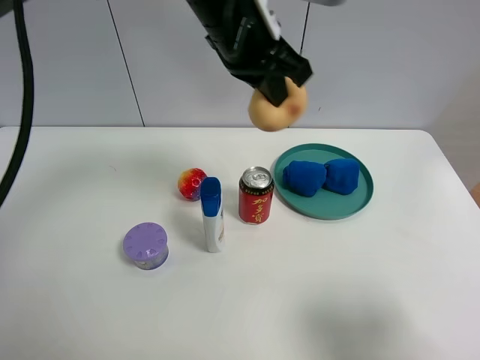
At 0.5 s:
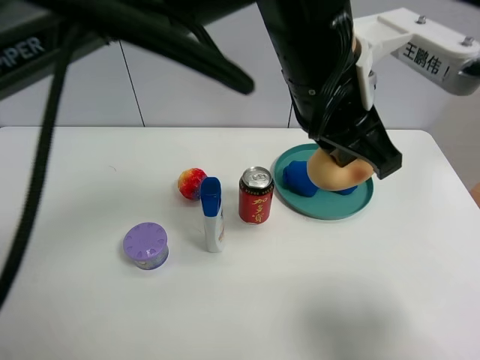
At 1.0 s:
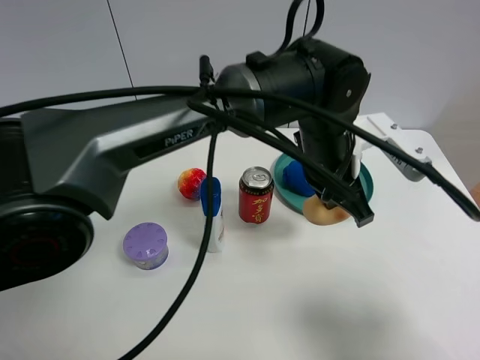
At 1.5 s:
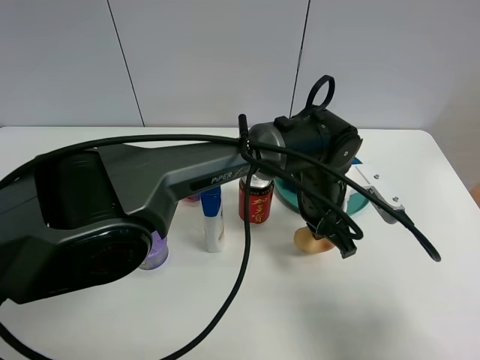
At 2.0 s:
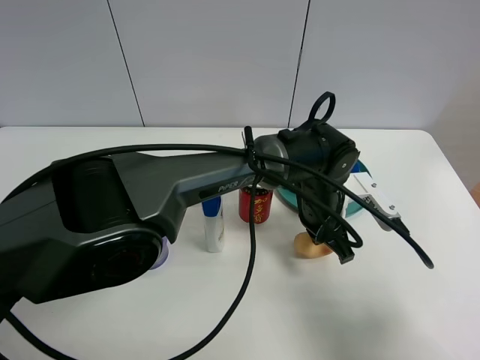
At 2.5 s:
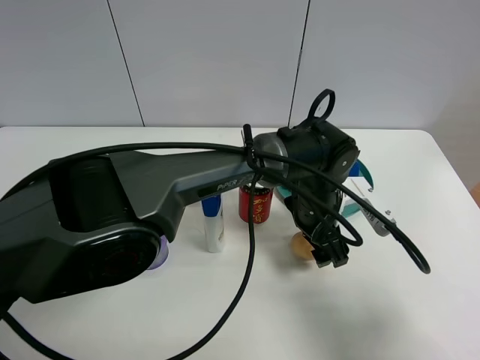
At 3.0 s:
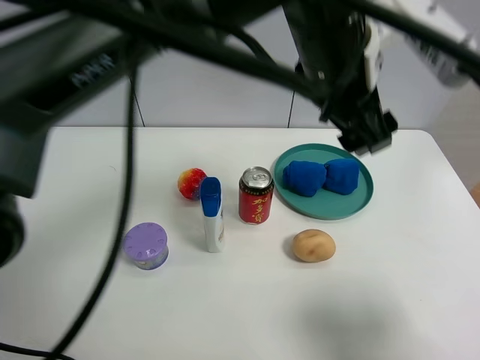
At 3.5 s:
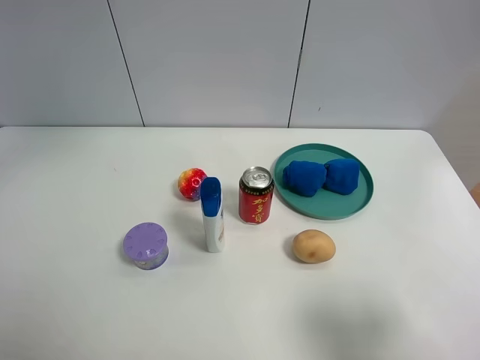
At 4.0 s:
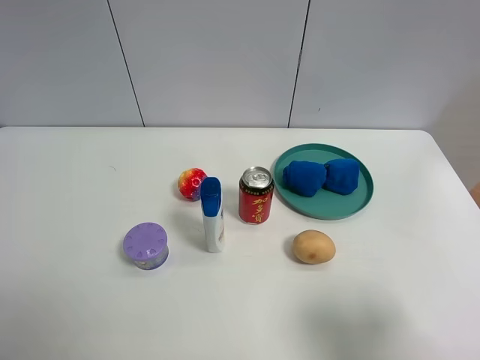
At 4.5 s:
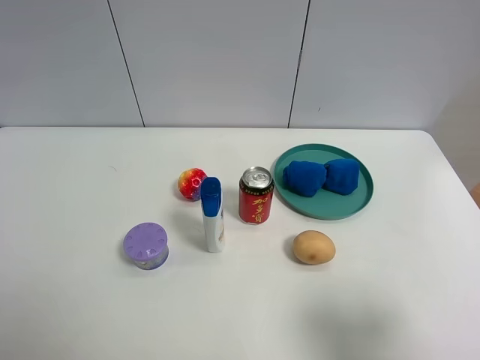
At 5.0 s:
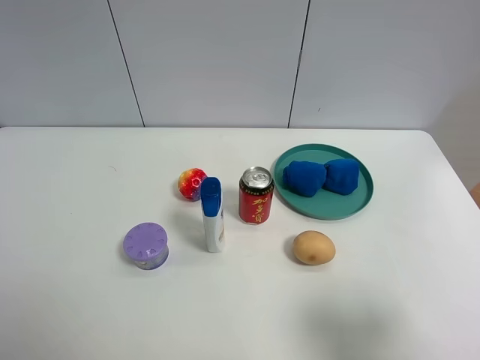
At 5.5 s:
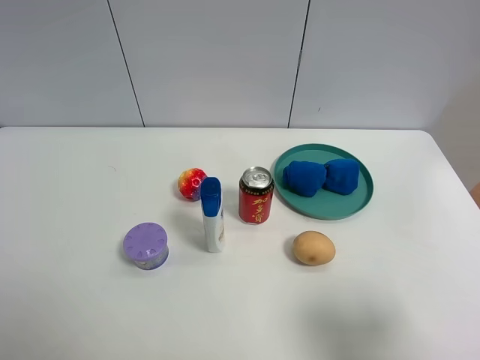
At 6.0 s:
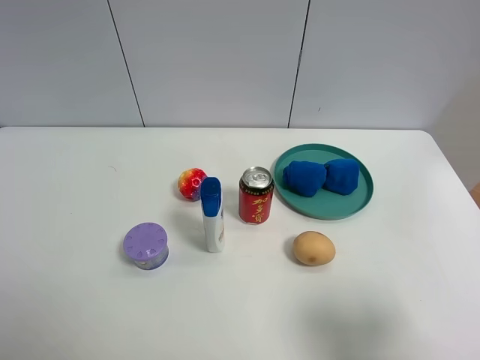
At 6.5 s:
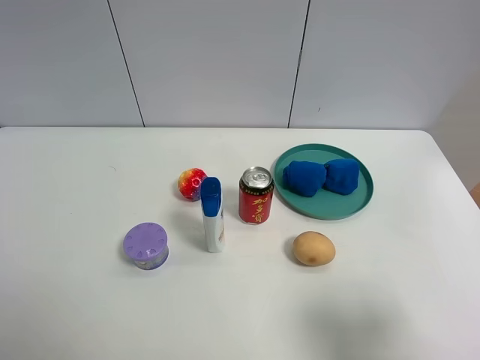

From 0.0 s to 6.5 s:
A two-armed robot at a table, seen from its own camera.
Task of the whole recording: the gripper move the object.
Step, from 0.0 s to 2.5 s: Place the egg yolk pastry on the table with the left gripper.
From 0.0 s to 2.0 s: The left gripper moves downward and to the right, roughly 25 cm.
From 2.0 s to 4.5 s: The left gripper goes some 60 cm to the left, upward and backward, and opens its fingers.

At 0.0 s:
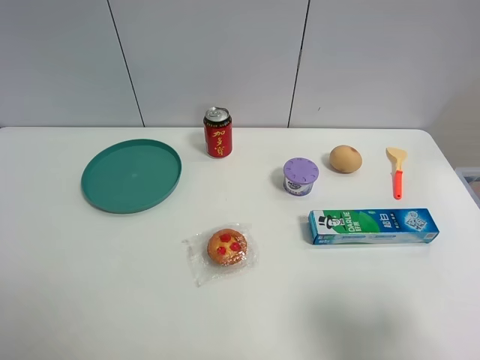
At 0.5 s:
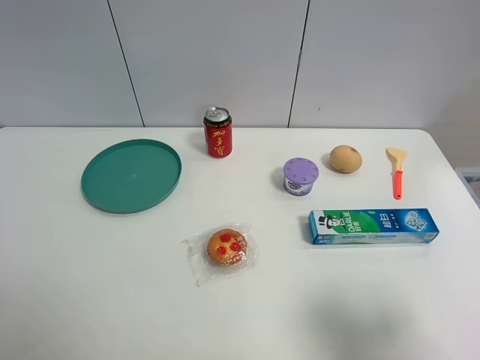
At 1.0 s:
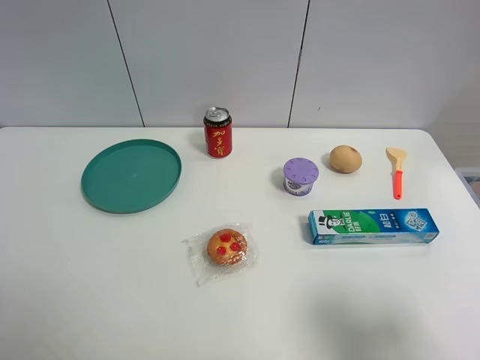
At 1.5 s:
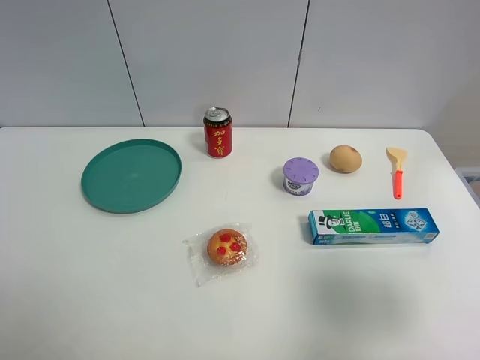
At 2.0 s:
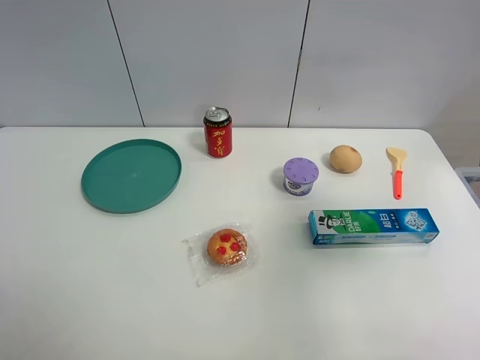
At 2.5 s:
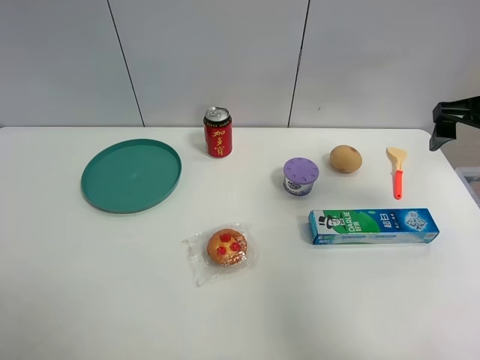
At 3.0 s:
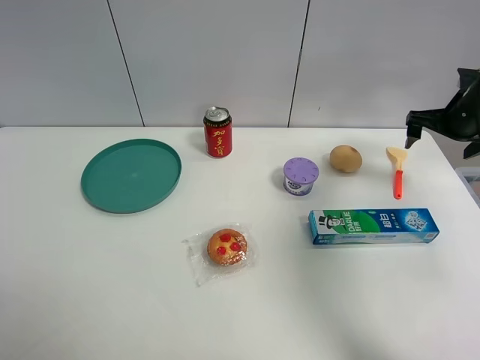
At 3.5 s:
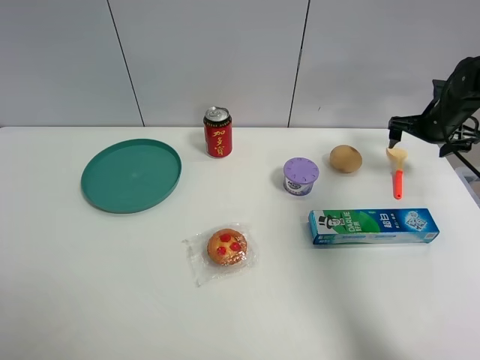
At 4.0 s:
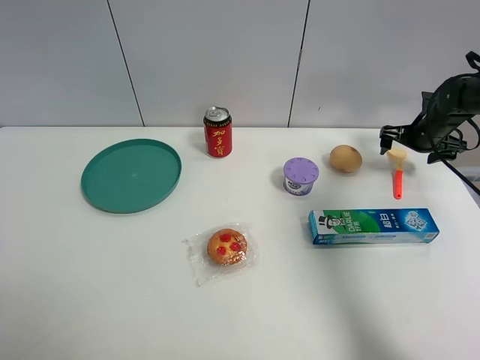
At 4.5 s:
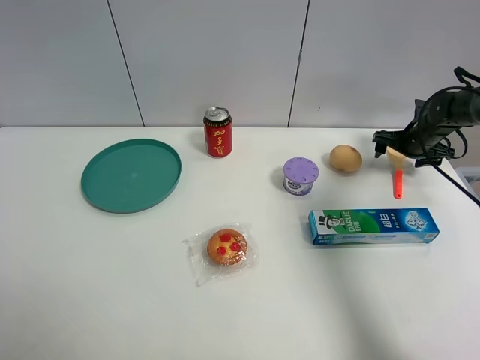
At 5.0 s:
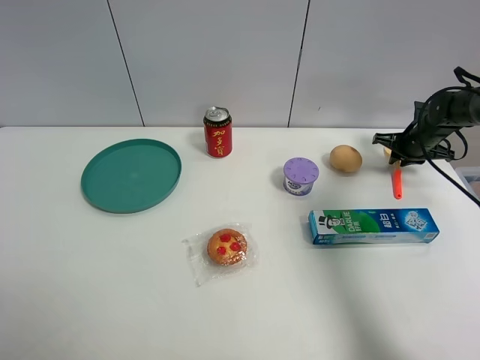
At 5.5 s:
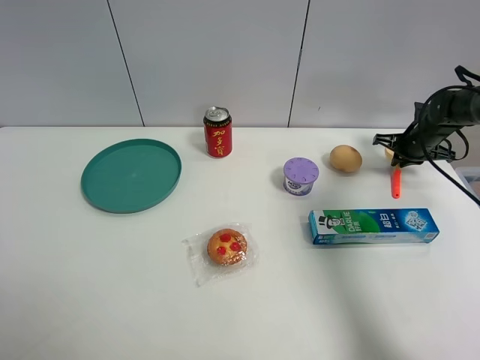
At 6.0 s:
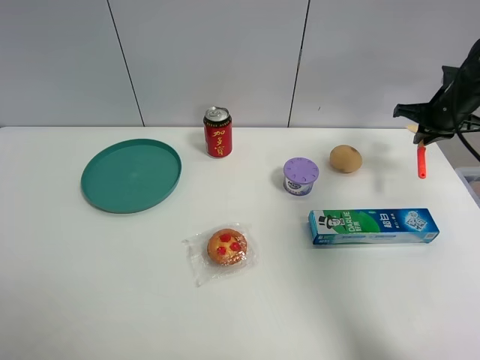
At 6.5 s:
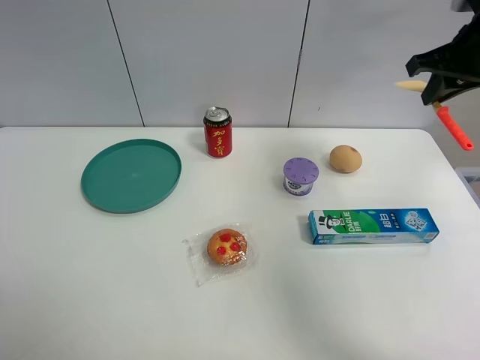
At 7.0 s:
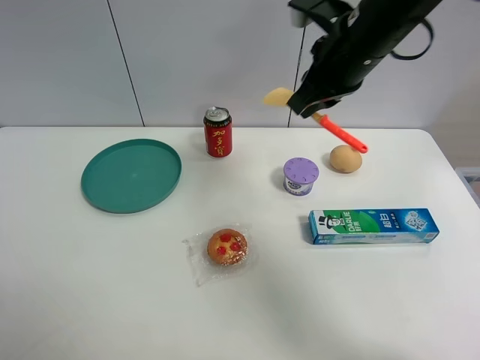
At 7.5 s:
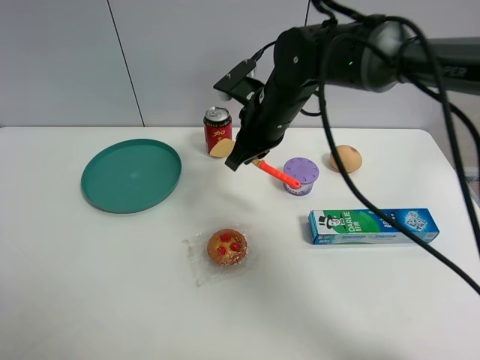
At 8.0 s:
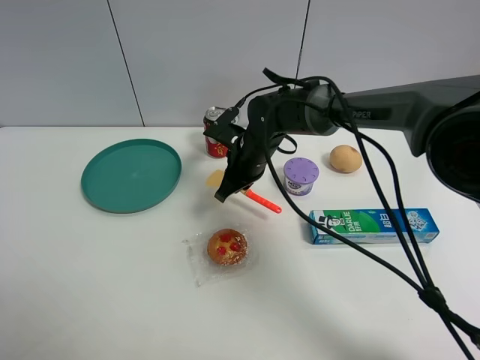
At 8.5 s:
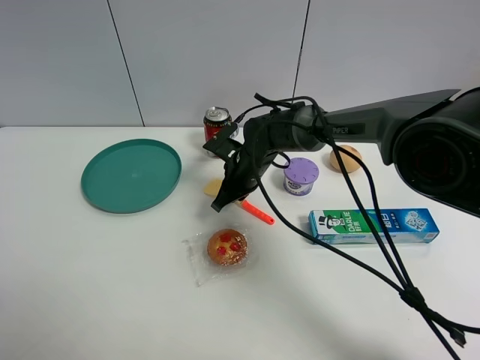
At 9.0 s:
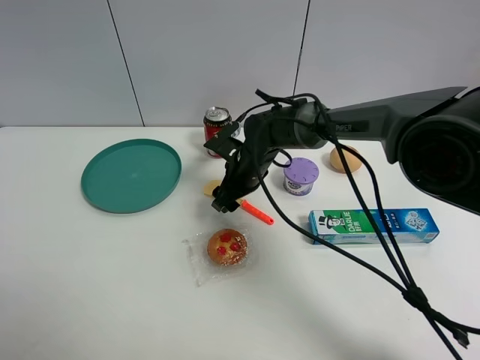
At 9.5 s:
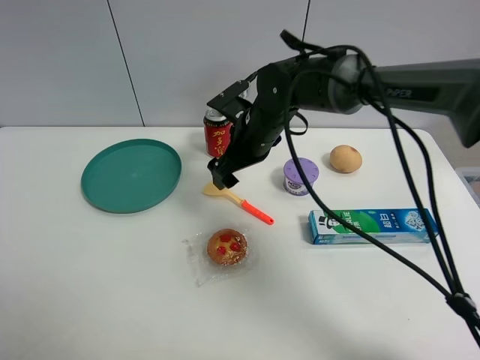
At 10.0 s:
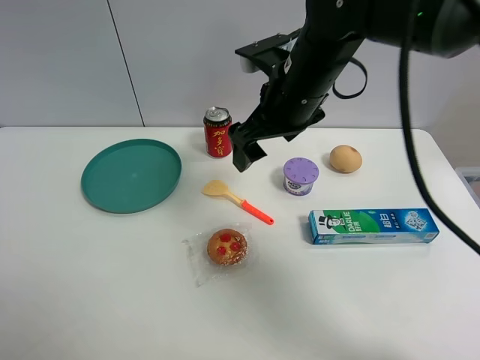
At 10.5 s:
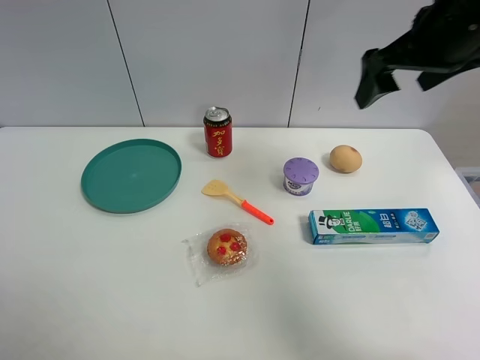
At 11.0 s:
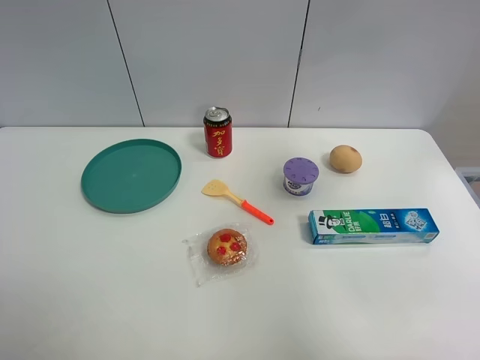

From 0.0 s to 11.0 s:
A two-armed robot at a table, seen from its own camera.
Task of the whole recording: the gripper move the object.
Step, from 0.0 s to 5.0 s: Grasp the cooking shovel with the right gripper.
Step, from 5.5 s to 9.0 s: Place the cooking shovel on the table with the right gripper.
From 0.0 s to 2.0 s: The right gripper goes about 20 cm forward and upward.
From 2.0 s to 3.5 s: The right gripper shifts roughly 35 cm forward and downward.
From 3.5 s to 5.5 s: The right gripper shifts approximately 5 cm downward, and closes.
From 5.5 s to 7.5 s: The right gripper shifts approximately 35 cm to the left.
From 7.5 s to 9.0 s: The right gripper is displaced downward by roughly 10 cm, and opens up.
From 9.0 s to 11.0 s: The right gripper travels upward, to the right and backward by about 50 cm.

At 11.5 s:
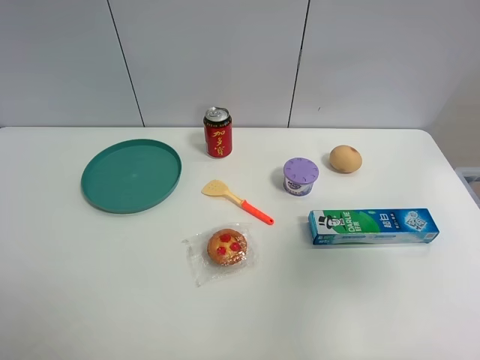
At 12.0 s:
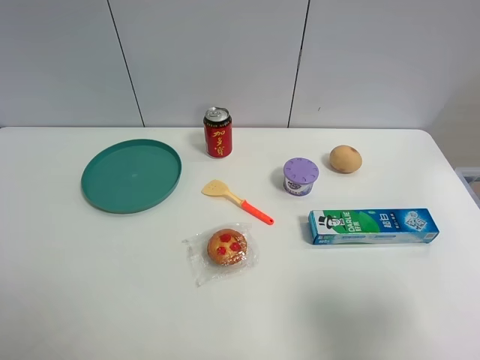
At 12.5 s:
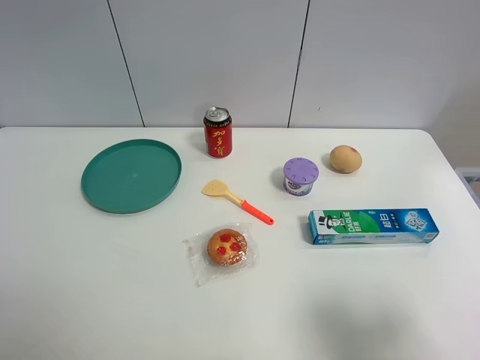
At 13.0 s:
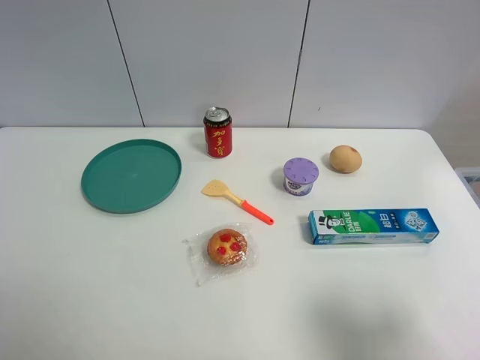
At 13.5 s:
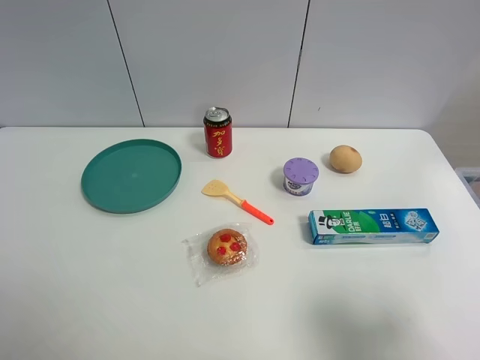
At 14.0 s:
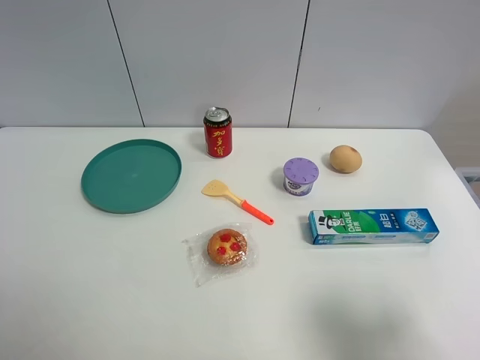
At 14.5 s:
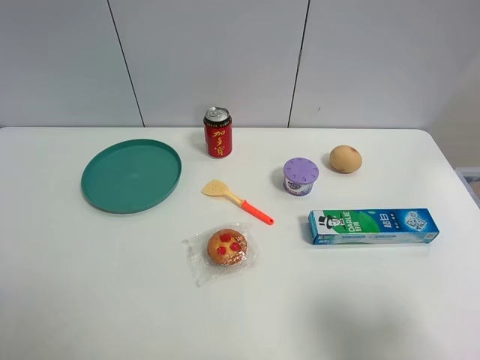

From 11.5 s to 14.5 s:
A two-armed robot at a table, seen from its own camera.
Task of the whole recording: the gripper move the object.
From 11.5 s to 13.0 s: The right gripper goes some 15 cm downward and backward.
From 13.0 s to 14.5 s: The two grippers keep their place.

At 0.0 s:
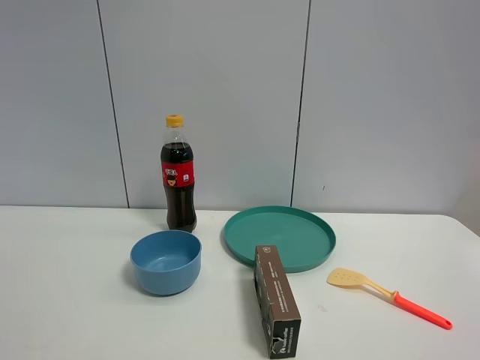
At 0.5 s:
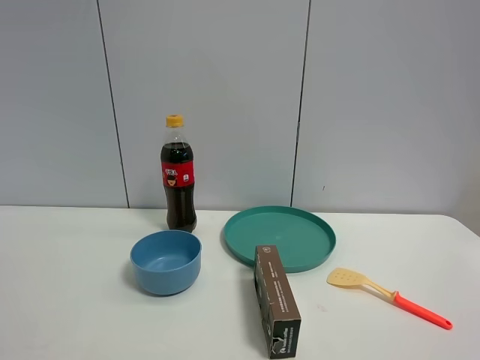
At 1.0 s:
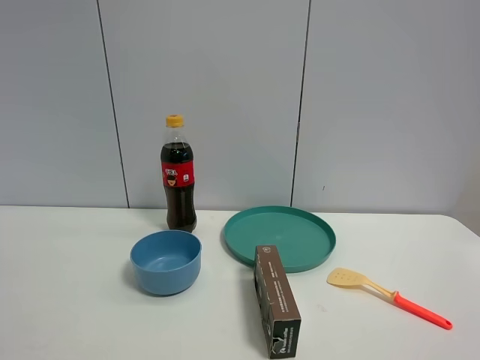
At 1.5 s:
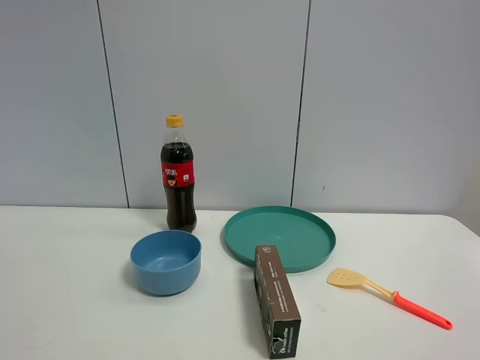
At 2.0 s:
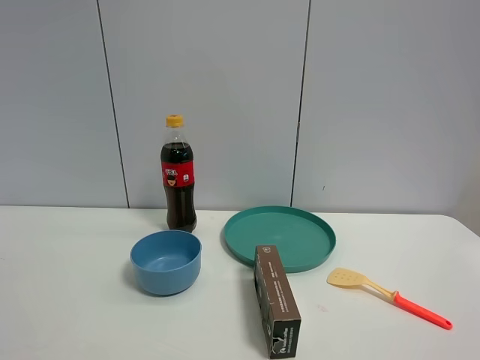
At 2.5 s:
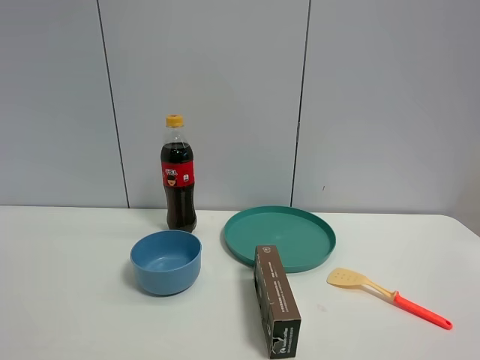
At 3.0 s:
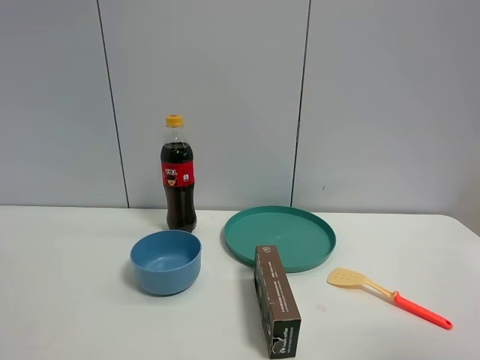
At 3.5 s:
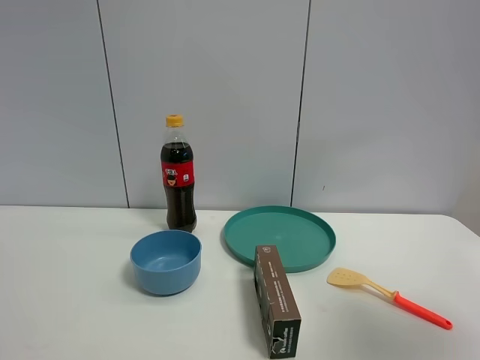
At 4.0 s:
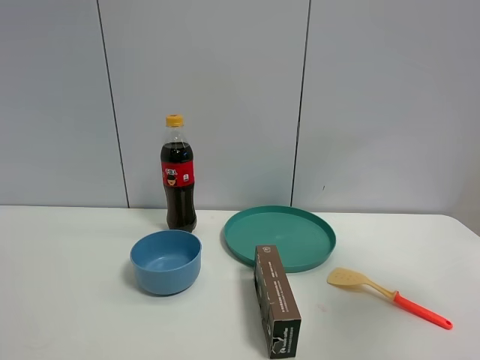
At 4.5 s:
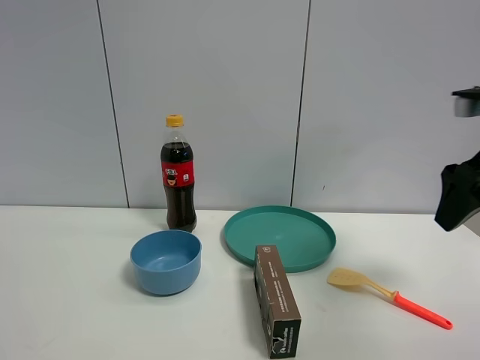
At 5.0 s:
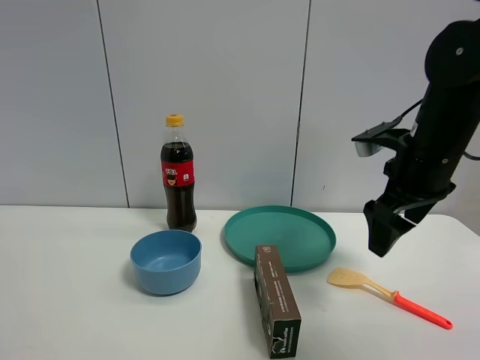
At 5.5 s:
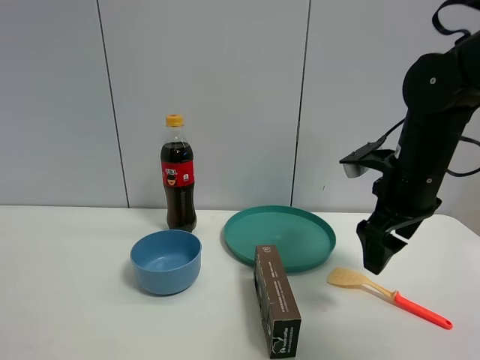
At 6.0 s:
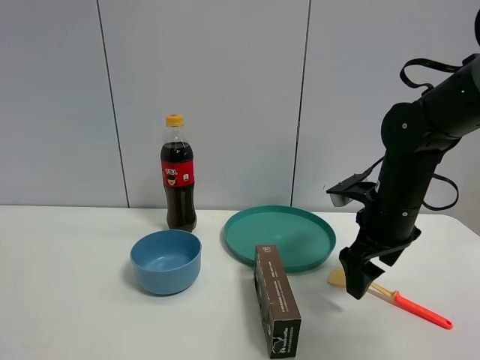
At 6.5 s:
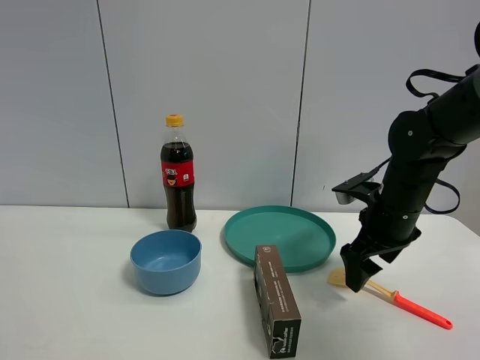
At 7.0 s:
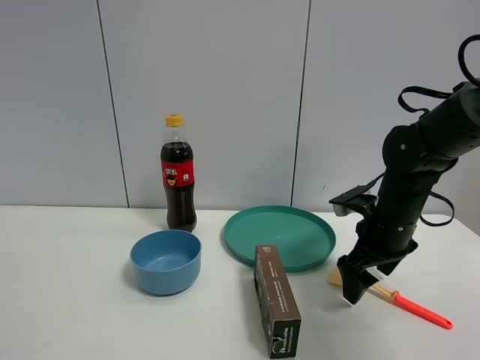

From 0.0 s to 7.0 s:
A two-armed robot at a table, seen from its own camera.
Task of the whole recording: the gripper move the object.
From 0.0 s to 2.0 s: The two grippers keep their place.
From 2.0 s to 3.5 s: The right gripper is displaced forward by roughly 15 cm.
From 3.5 s to 5.0 s: The right gripper heads forward, downward and to the left, covering about 25 cm.
From 5.0 s to 7.0 s: The right gripper shifts about 10 cm downward.
